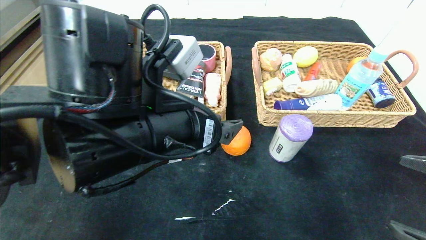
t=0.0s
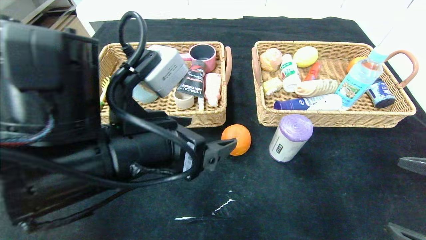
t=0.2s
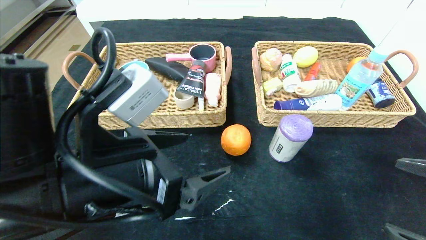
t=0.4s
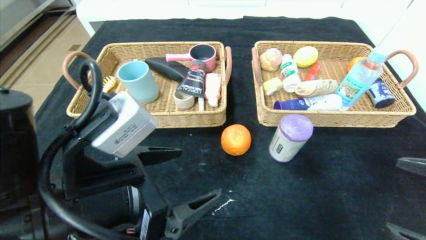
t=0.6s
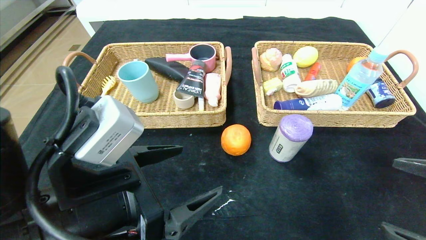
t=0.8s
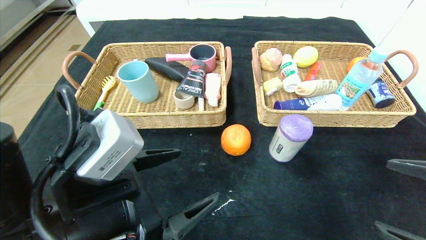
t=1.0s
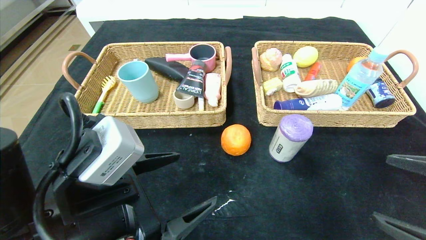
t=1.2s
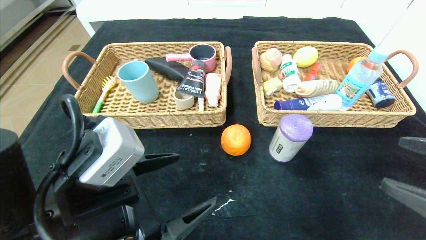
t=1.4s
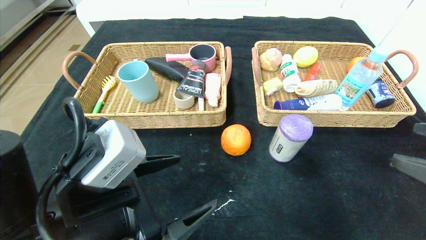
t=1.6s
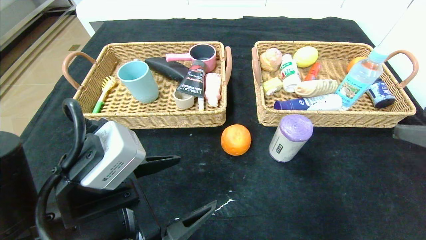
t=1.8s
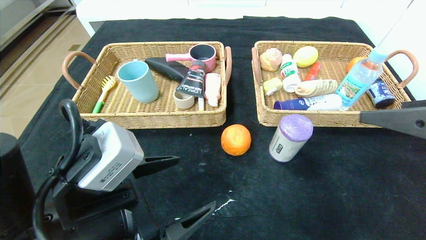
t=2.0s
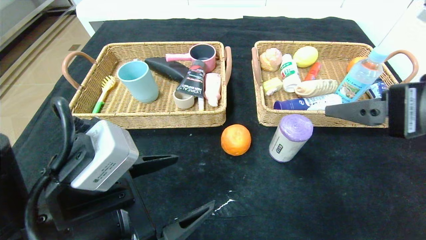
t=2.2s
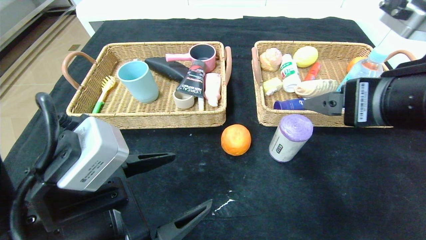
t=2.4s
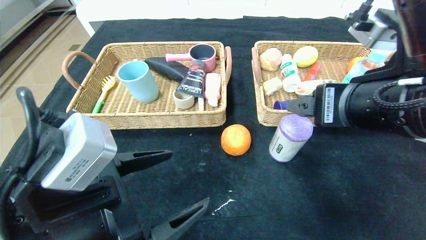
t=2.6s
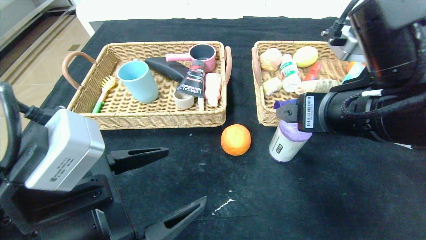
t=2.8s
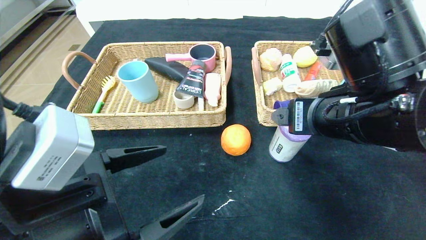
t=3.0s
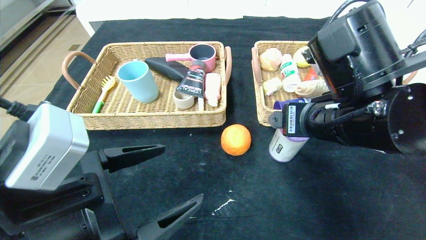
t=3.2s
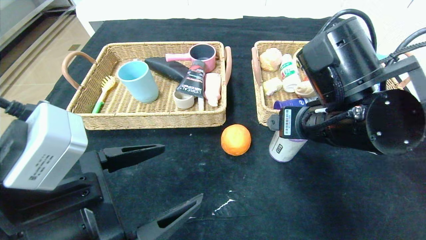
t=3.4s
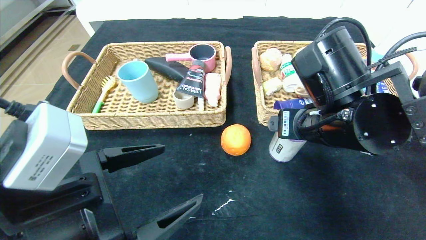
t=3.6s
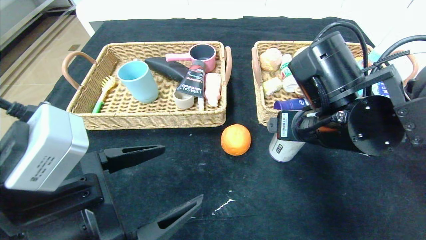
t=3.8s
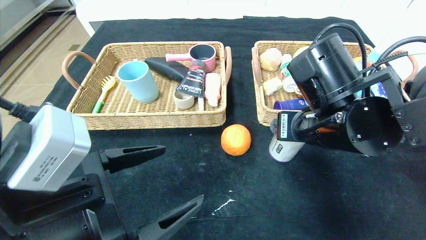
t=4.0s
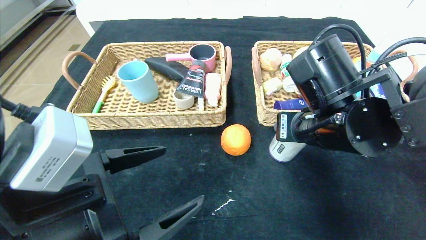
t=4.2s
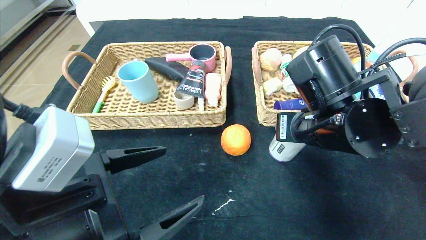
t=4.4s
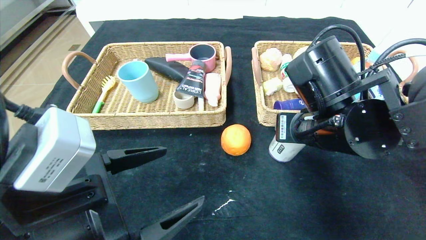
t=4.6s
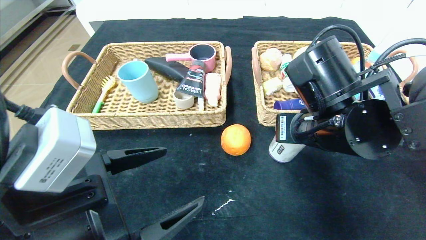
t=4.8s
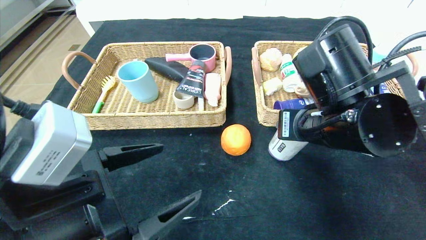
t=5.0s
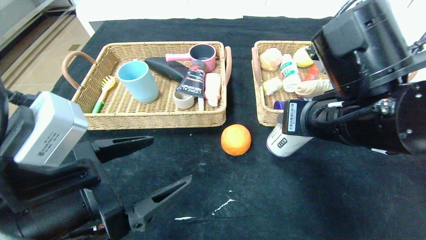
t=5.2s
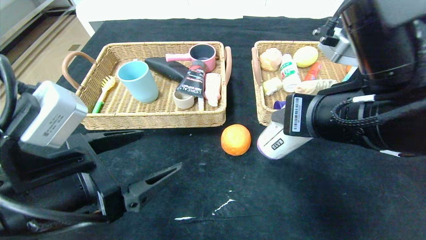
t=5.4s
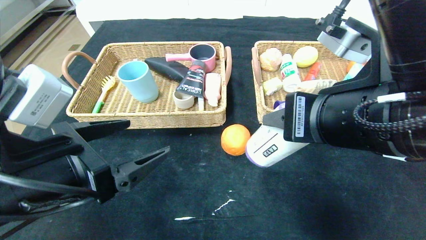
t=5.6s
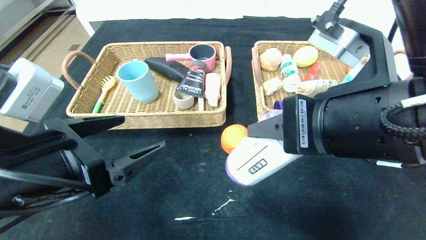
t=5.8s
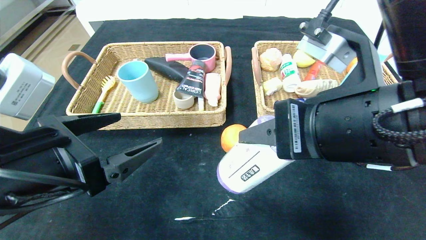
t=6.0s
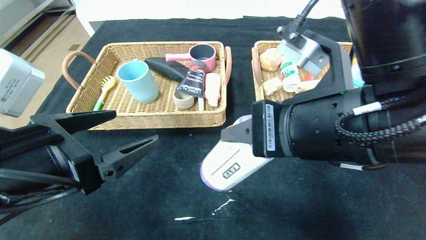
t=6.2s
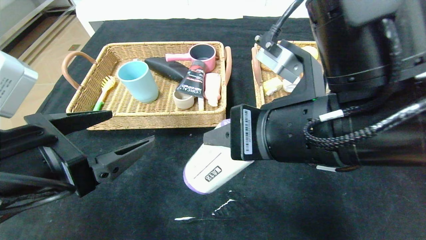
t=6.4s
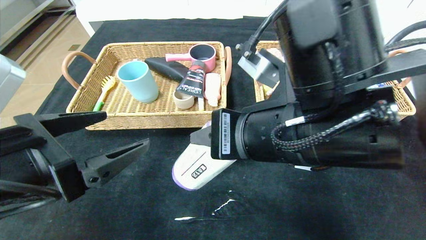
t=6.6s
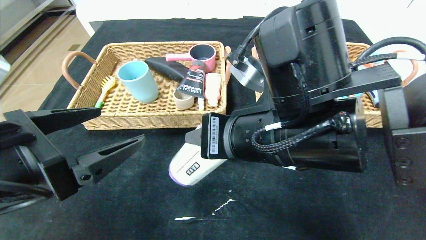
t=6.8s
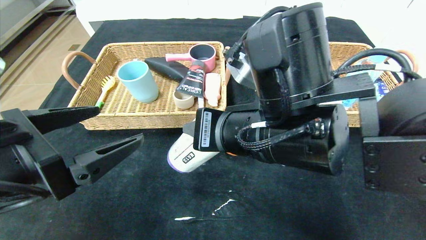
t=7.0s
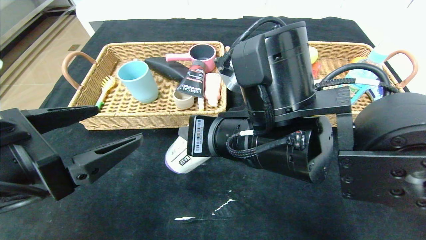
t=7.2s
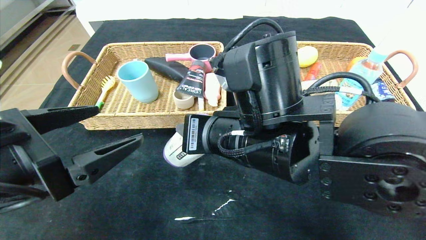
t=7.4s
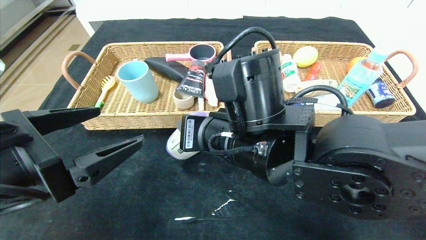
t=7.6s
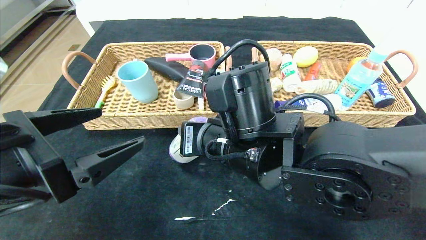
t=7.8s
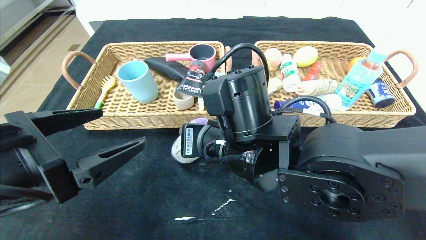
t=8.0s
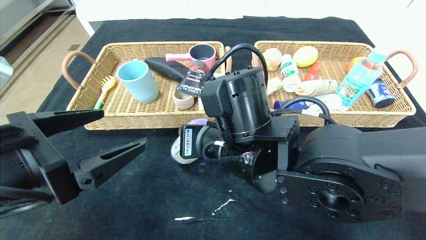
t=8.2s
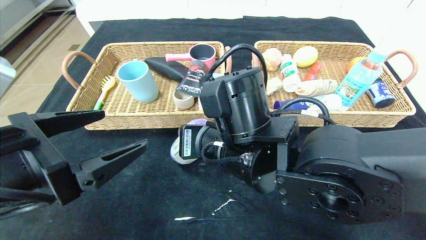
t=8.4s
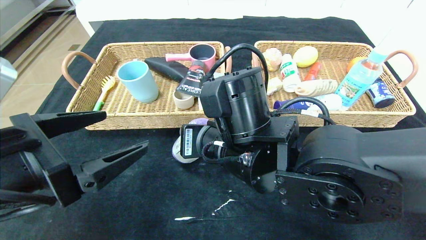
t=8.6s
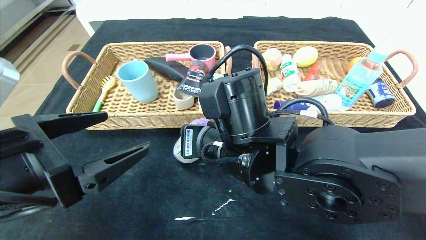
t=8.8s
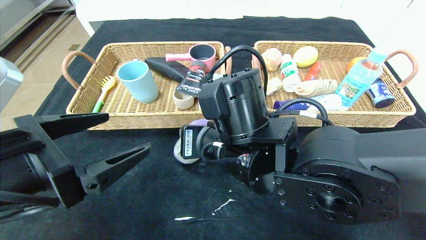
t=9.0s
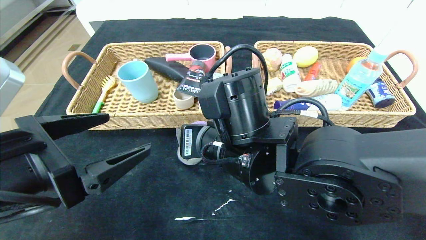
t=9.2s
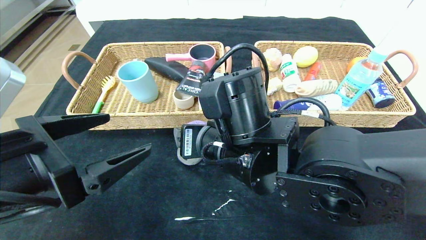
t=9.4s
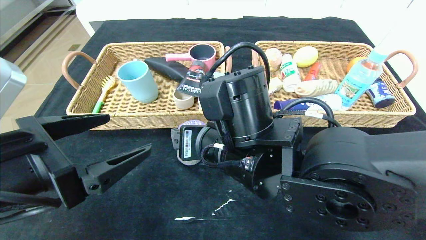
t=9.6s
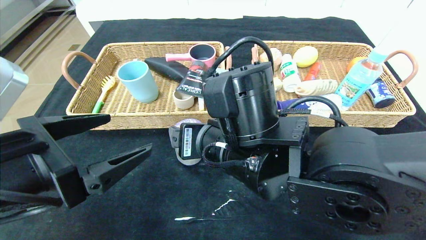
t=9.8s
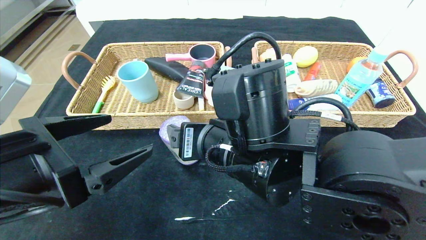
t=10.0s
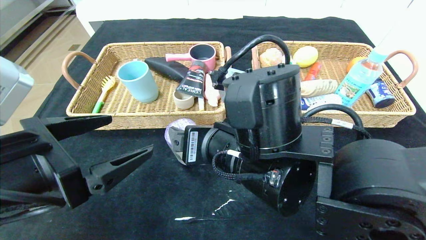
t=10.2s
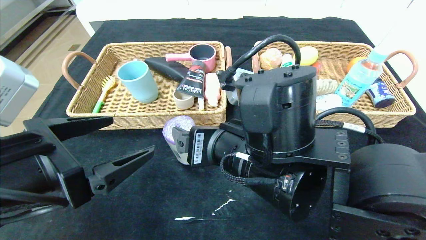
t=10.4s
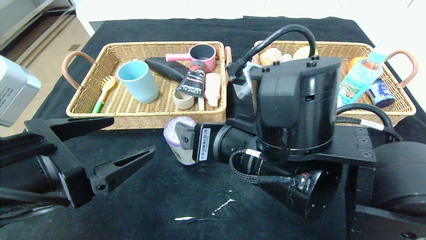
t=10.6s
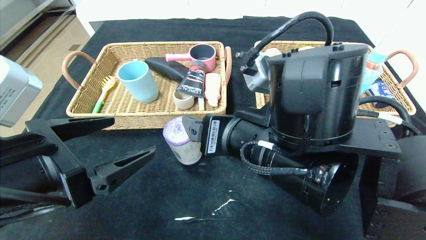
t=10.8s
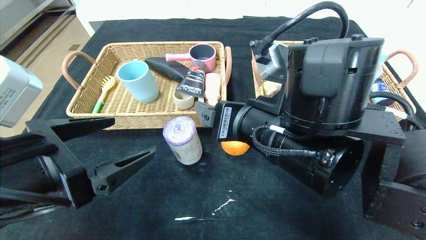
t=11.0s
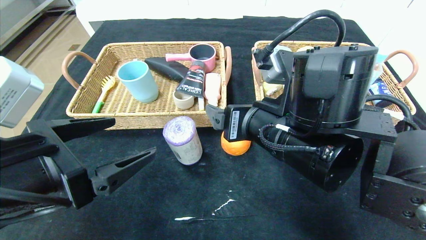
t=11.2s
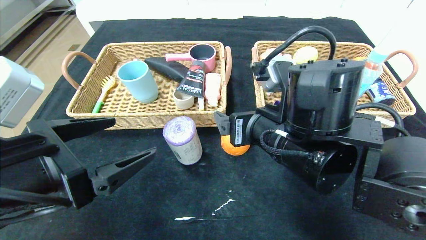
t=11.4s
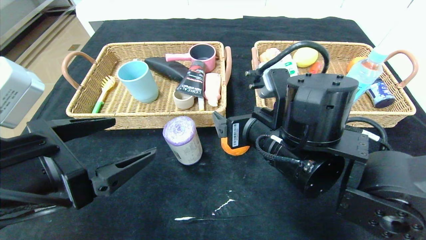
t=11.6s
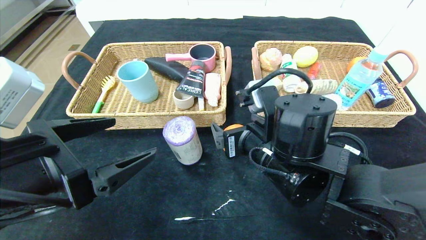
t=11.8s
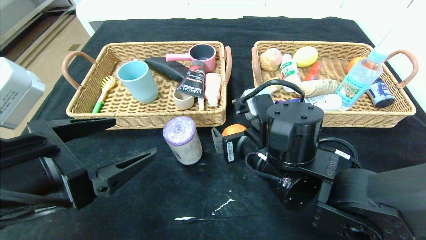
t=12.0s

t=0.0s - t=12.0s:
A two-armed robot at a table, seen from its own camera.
Step, t=0.0s - t=9.8s: Place the purple garbage bag in the center of the table.
t=0.0s - t=1.6s: The right gripper is displaced upward by approximately 5 cm; the left gripper goes some 10 cm downward, to the left and backward.
t=1.6s - t=3.0s: The right gripper heads to the left and forward, covering some 20 cm.
t=3.0s - t=4.4s: The right gripper closes up.
t=4.4s - t=6.0s: The right gripper goes approximately 10 cm backward and upward. Meanwhile the left gripper moves approximately 5 cm.
t=6.0s - t=7.6s: The right gripper is displaced to the left, downward and forward by roughly 15 cm.
t=9.0s - t=10.4s: The right gripper opens up.
t=10.4s - t=12.0s: The right gripper changes place by some 5 cm.

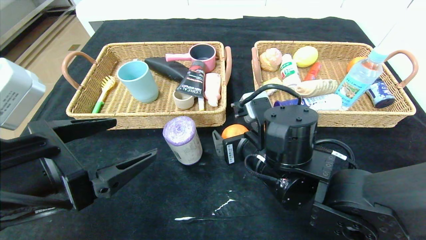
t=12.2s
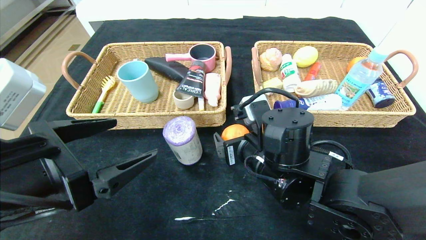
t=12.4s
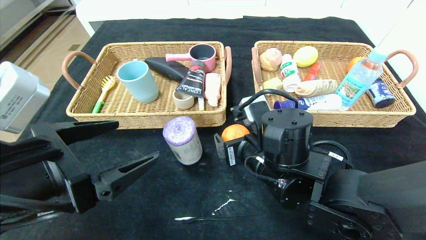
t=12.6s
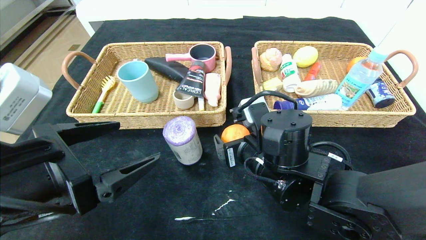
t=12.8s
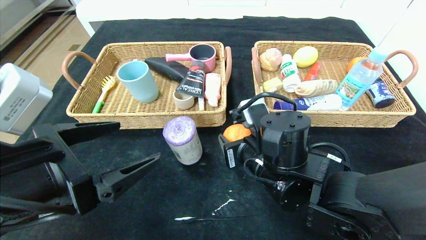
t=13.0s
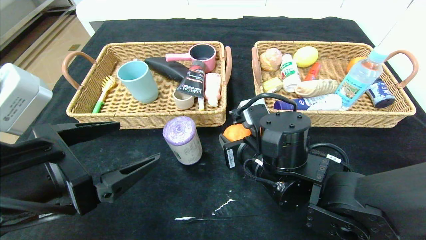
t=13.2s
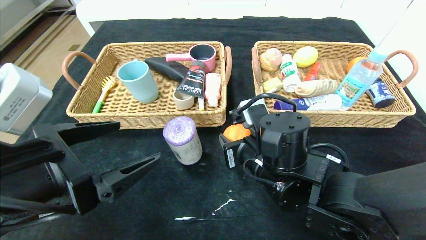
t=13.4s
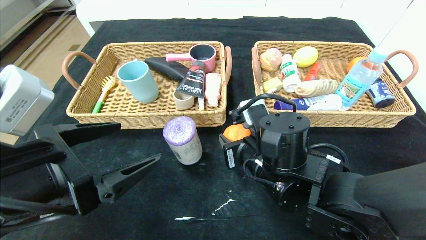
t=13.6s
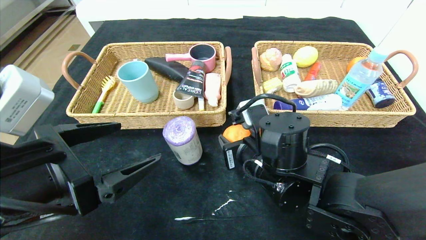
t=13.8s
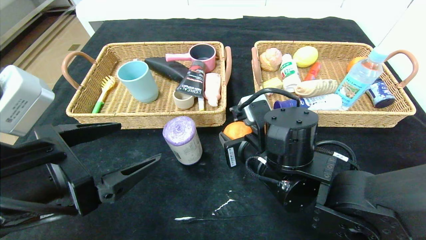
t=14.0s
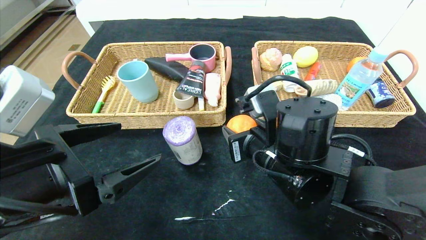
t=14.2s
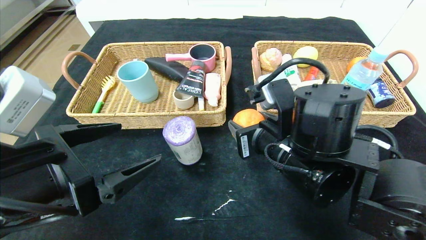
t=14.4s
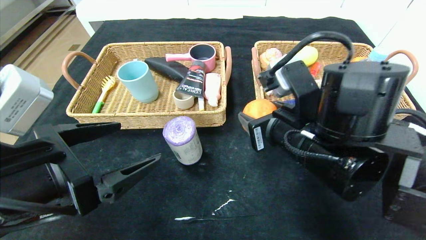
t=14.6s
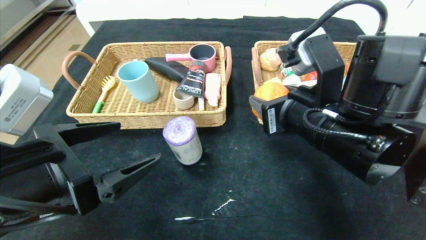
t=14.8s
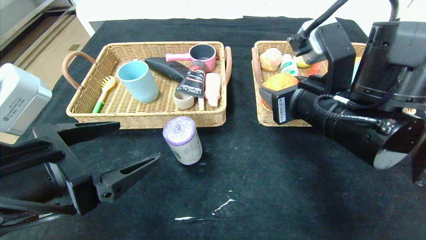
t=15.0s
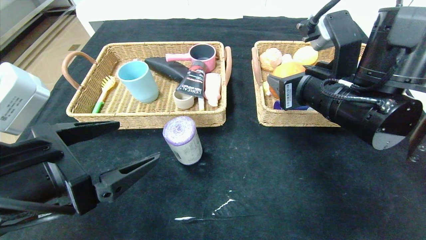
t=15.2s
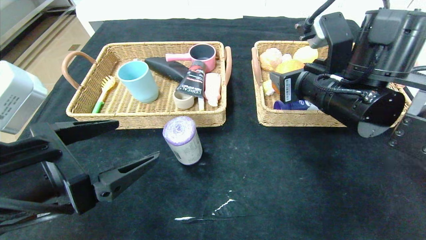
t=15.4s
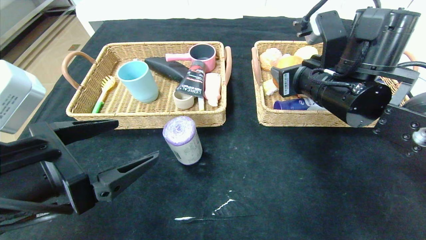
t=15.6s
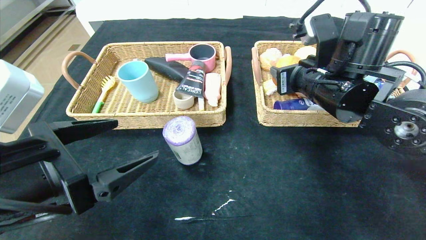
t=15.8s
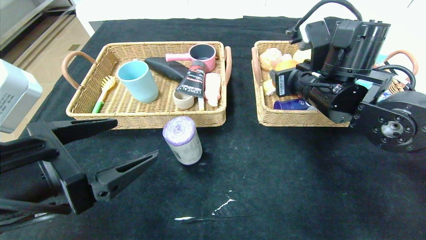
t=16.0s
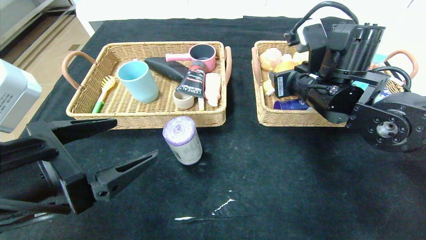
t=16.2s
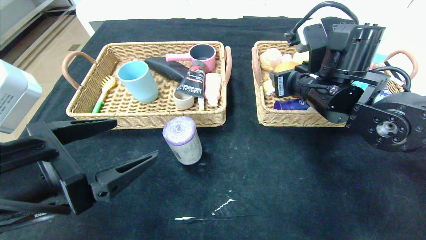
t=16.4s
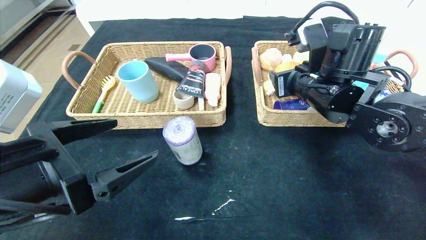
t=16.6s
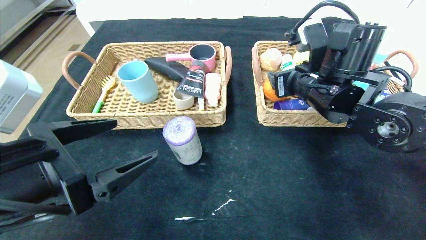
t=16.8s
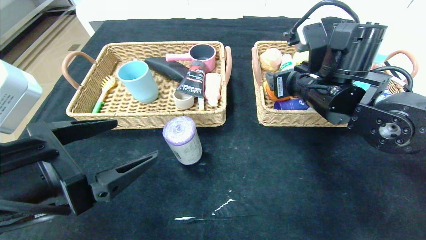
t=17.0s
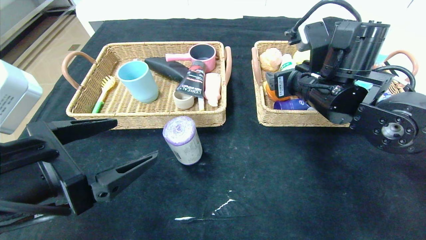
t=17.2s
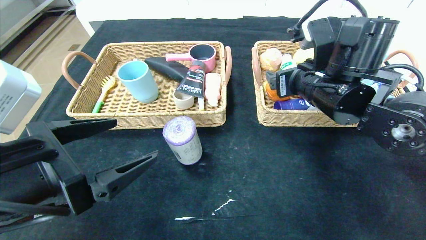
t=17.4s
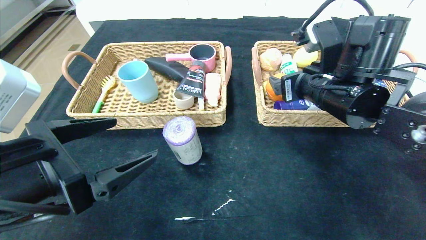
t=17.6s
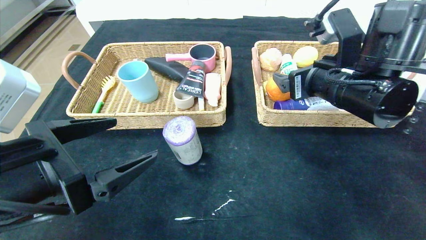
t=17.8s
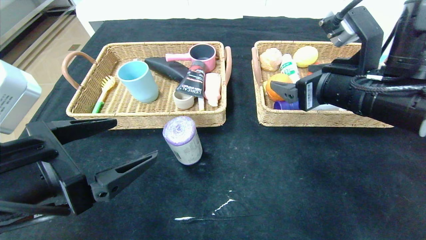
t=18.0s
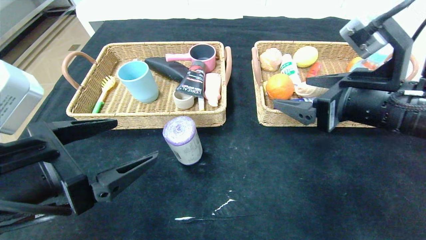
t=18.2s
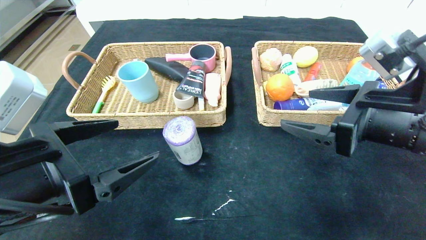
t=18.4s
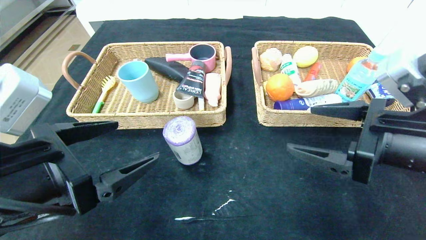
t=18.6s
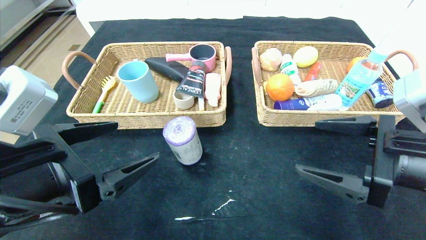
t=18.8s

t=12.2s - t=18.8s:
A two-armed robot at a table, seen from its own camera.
Step, t=12.2s - t=17.4s: Grasp the orange and put it in the right basket.
t=12.2s - t=13.8s: The right gripper closes its fingers.
t=13.8s - t=15.4s: The right gripper shifts approximately 15 cm upward and to the right.
t=15.4s - t=17.2s: The grippers make only small movements.
t=17.2s - t=18.8s: The right gripper moves backward and to the right, approximately 15 cm.
